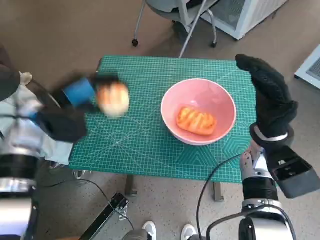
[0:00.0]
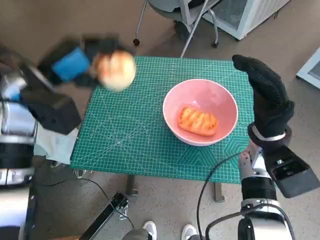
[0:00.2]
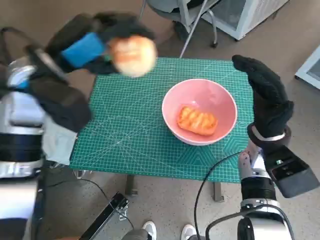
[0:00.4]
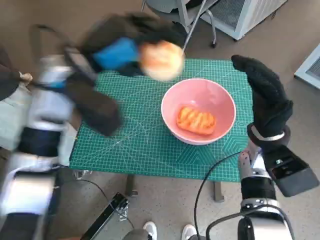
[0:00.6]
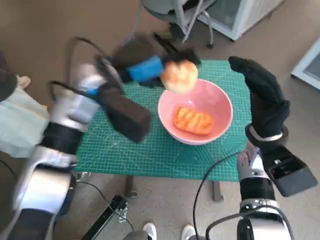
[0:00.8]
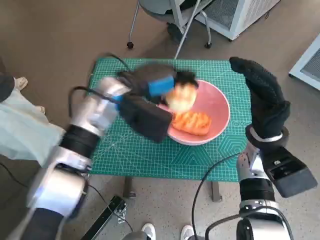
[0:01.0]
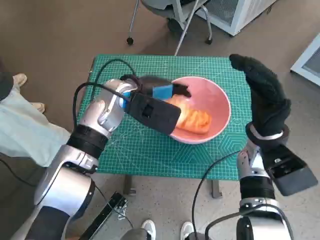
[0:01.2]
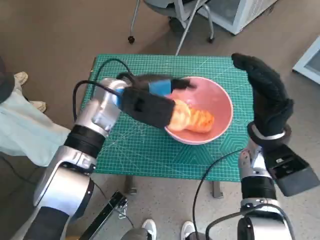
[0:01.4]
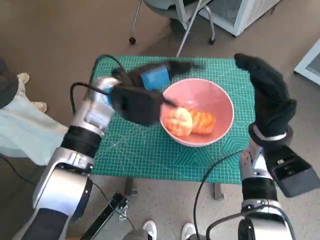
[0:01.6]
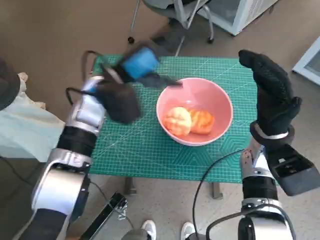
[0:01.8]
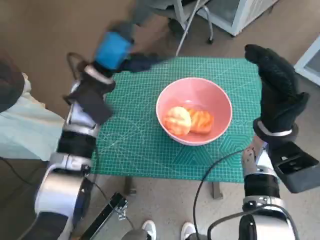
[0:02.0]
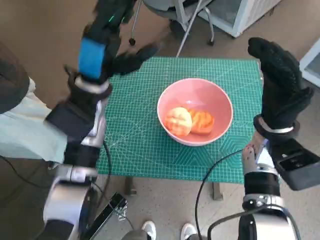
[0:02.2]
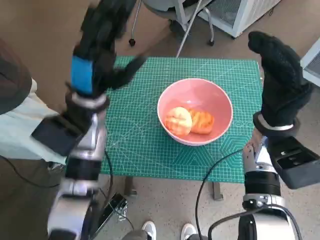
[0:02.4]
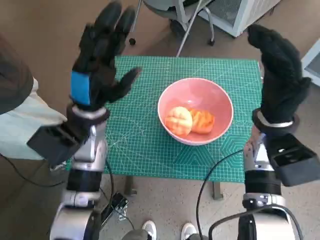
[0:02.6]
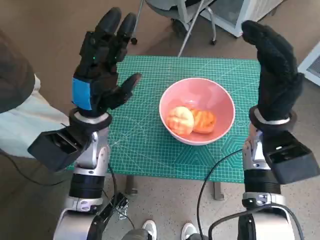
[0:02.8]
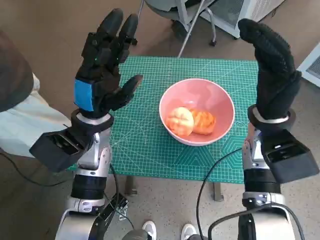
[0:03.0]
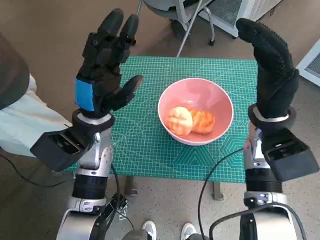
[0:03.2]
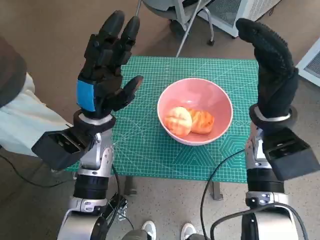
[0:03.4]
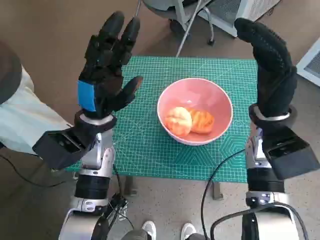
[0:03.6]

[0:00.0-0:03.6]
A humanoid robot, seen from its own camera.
Task of the whole recording: Push the bowl to the center of the table and put the bread into the bowl.
Step, 0:00.0 to 0:01.2: Place the round bread in pink bowl with left hand.
0:00.0 to 0:01.8: The left hand travels to the right by roughly 10 cm.
0:01.8 to 0:03.6: The left hand shifts roughly 10 cm downward and backward.

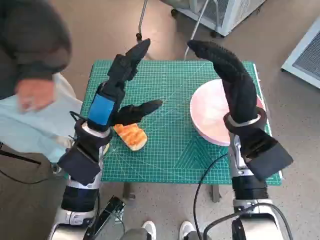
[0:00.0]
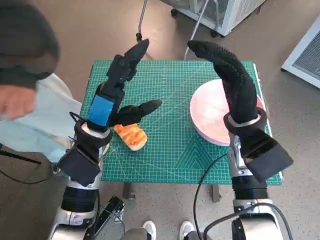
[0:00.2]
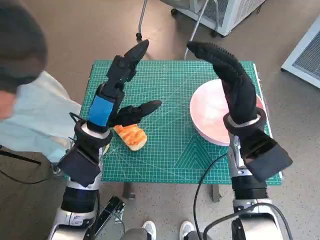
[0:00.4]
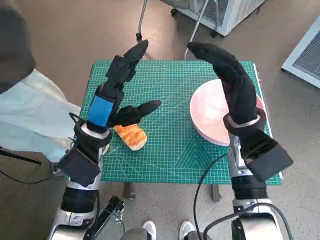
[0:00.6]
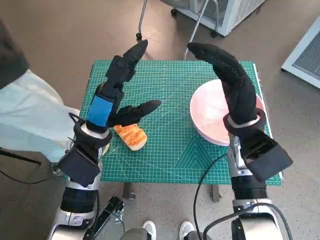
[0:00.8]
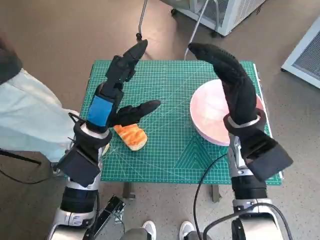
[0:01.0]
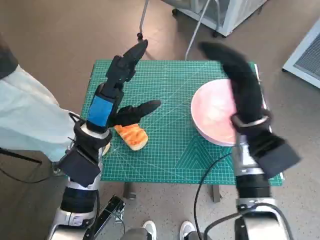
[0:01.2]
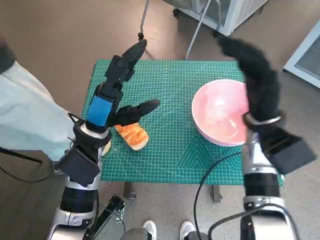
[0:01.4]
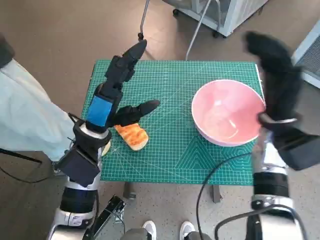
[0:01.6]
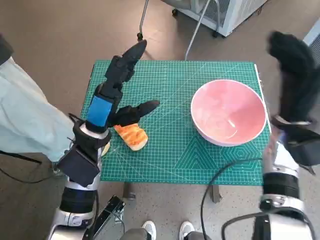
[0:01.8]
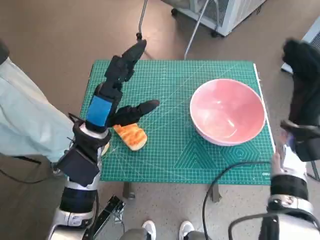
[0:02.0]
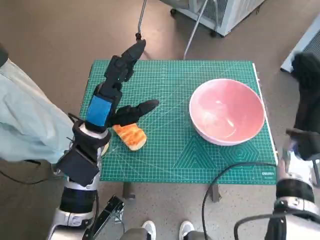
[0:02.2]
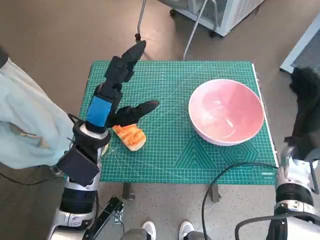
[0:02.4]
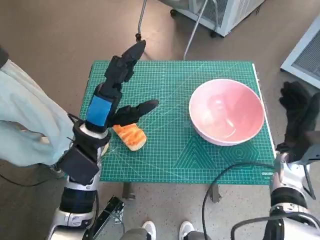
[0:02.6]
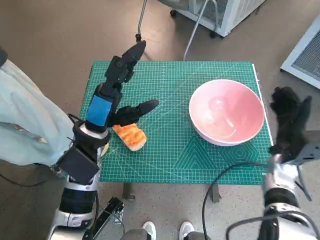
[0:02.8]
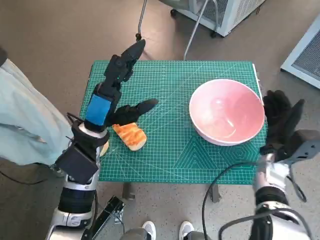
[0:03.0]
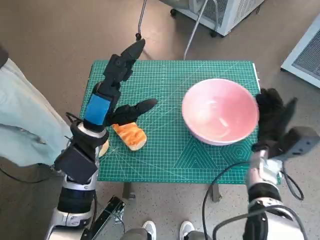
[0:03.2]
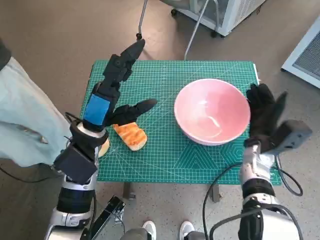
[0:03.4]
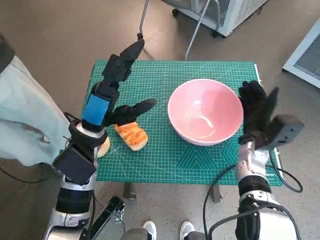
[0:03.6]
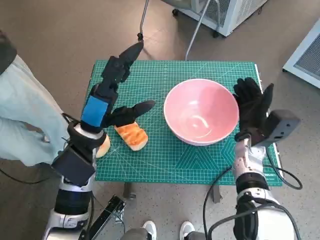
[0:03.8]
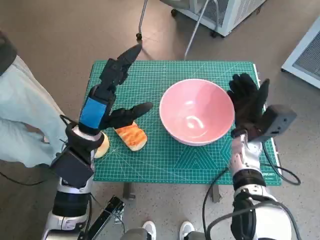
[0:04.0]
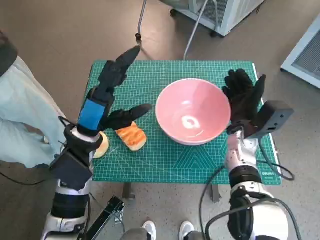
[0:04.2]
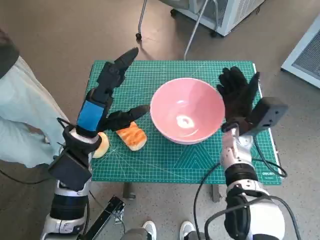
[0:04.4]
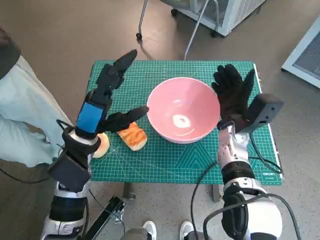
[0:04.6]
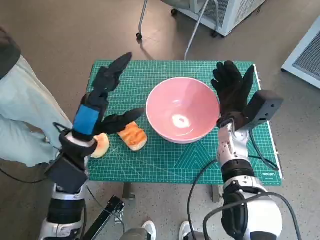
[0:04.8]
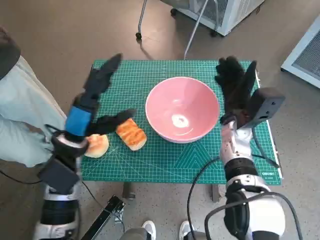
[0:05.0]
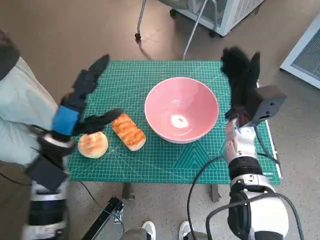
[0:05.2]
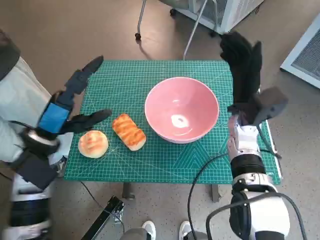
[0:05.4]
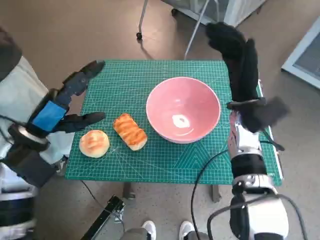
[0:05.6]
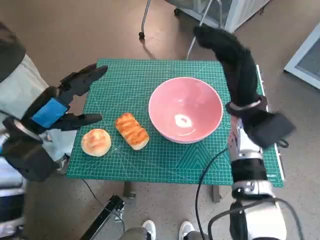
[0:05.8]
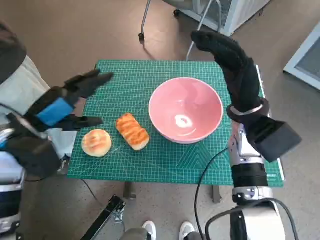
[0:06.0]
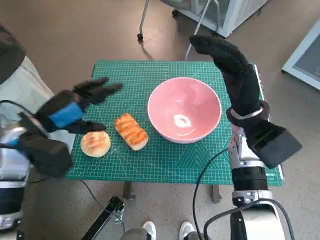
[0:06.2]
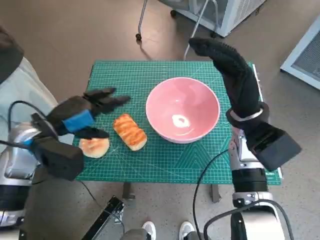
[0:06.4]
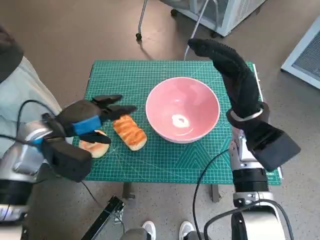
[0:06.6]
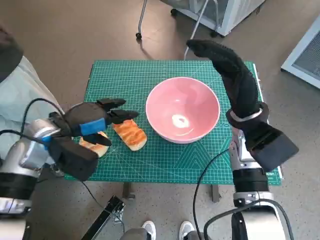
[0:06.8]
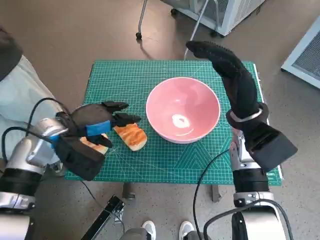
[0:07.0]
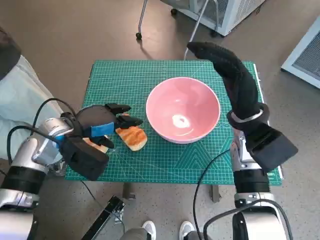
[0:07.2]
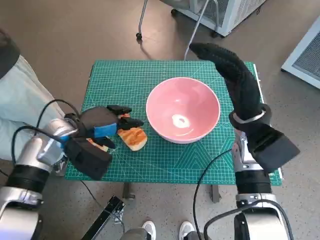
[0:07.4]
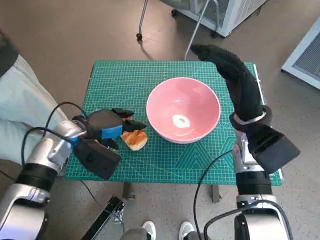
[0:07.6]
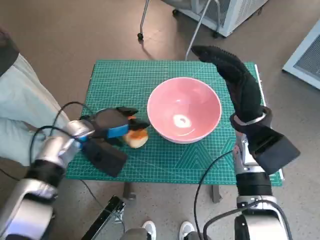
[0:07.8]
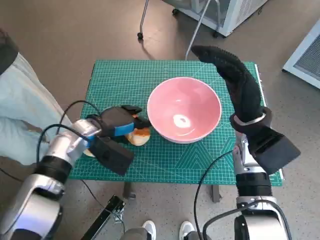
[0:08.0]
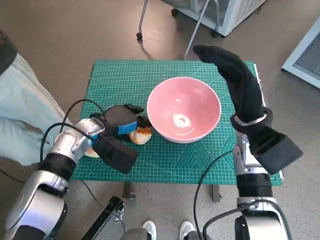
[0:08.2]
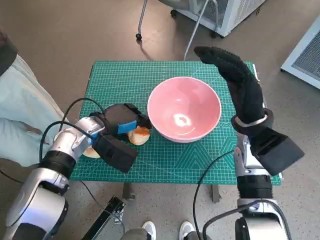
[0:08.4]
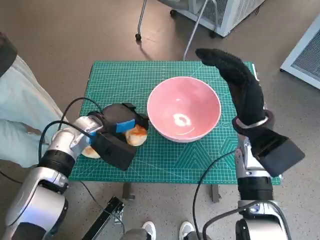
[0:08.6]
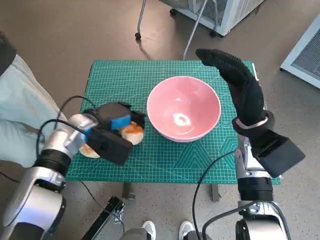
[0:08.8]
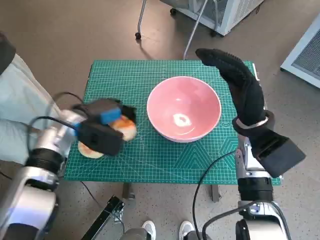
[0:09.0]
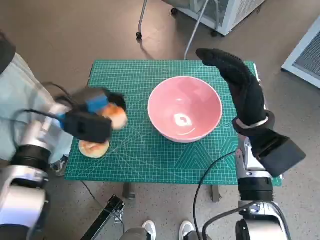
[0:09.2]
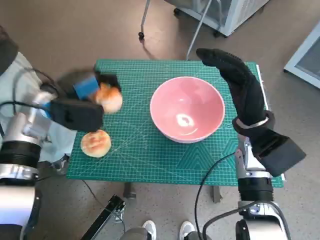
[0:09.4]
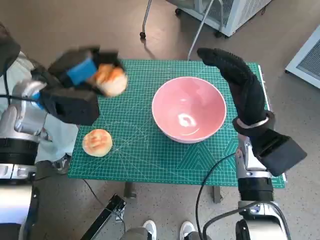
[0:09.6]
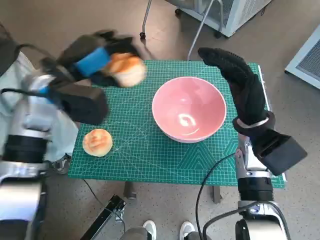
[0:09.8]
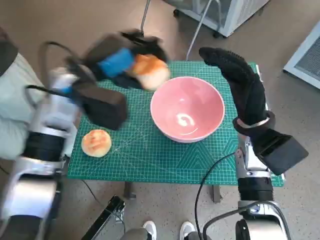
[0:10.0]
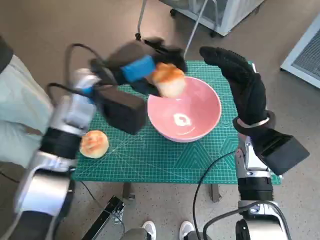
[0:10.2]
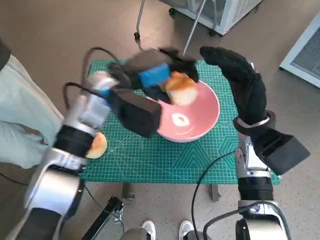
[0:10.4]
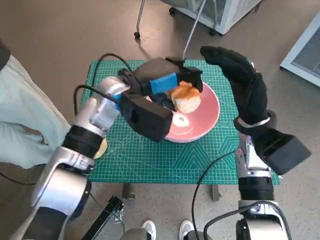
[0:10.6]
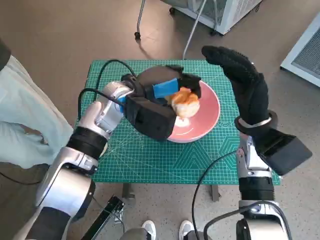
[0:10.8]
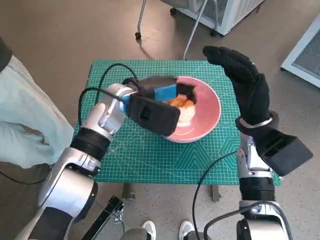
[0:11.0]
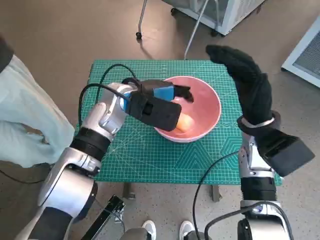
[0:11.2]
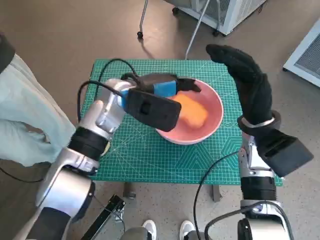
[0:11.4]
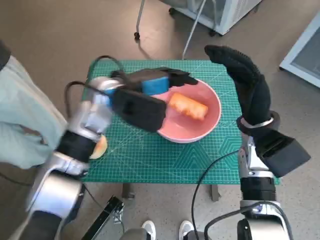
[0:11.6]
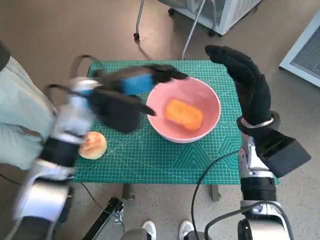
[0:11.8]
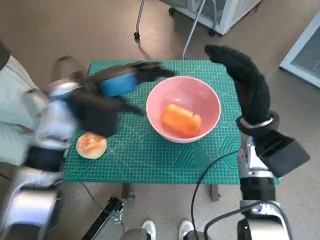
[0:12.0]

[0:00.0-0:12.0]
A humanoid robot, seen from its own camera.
Task of the whole recording: Push the bowl to the center of the table and put the bread into the bowl.
Step, 0:00.0 to 0:04.8: Move the pink bowl to the center of table with right hand.
Step, 0:05.0 to 0:08.6: Grasp the long bread with left hand.
Step, 0:08.8 to 0:11.4: Place the long bread in pink bowl with left hand.
0:01.6 to 0:03.0: The right hand goes roughly 10 cm downward.
0:03.0 to 0:04.4: The right hand goes about 10 cm to the left.
0:04.4 to 0:06.0: The left hand shifts about 10 cm to the left, while the right hand is displaced upward by some 10 cm.
0:06.0 to 0:07.6: The left hand is displaced downward and to the right by about 10 cm.
0:07.6 to 0:09.0: The hands make only small movements.
0:09.0 to 0:10.4: The left hand travels upward and to the right by about 15 cm.
0:10.4 to 0:12.0: The left hand travels to the left by some 5 cm.

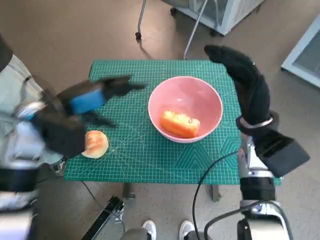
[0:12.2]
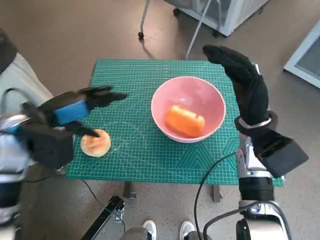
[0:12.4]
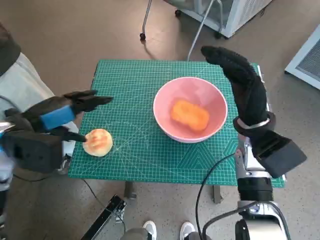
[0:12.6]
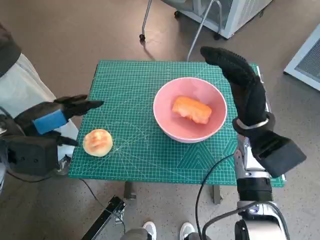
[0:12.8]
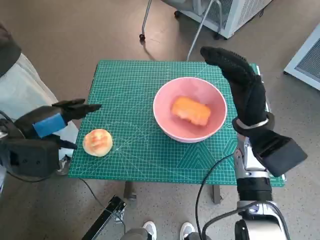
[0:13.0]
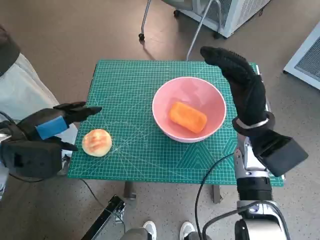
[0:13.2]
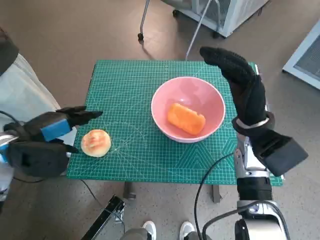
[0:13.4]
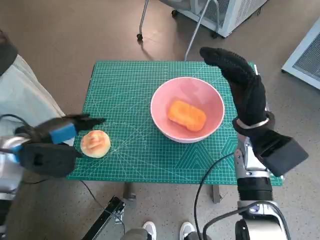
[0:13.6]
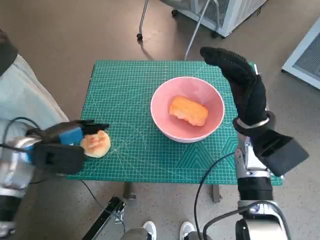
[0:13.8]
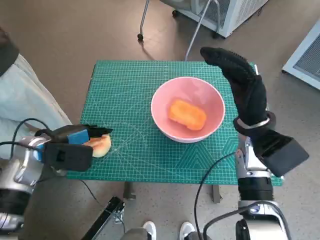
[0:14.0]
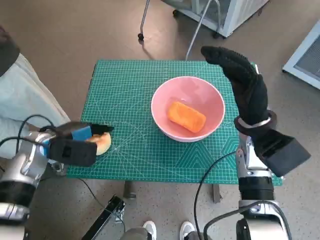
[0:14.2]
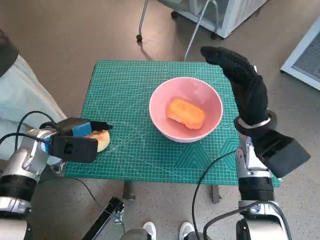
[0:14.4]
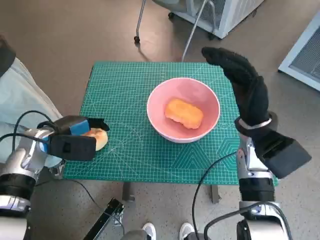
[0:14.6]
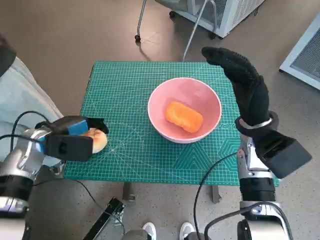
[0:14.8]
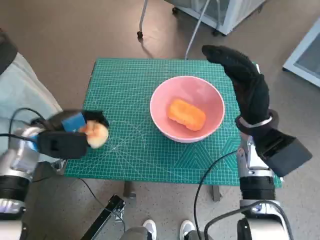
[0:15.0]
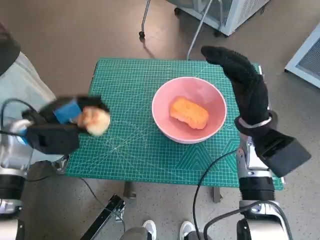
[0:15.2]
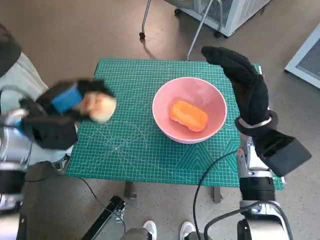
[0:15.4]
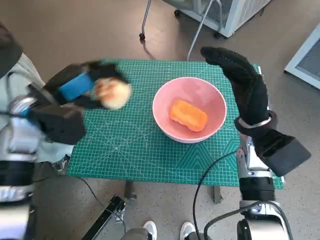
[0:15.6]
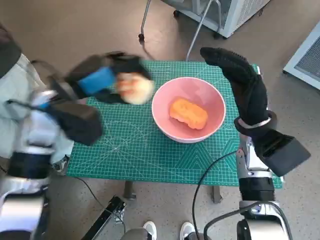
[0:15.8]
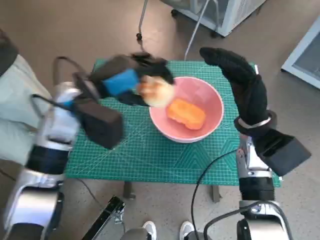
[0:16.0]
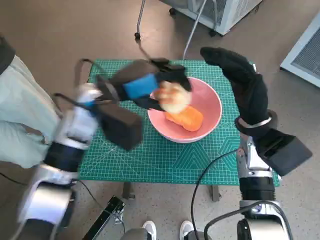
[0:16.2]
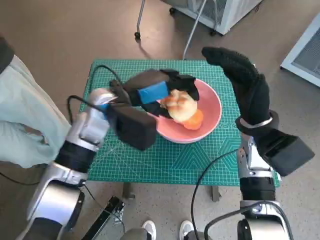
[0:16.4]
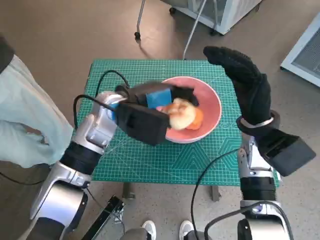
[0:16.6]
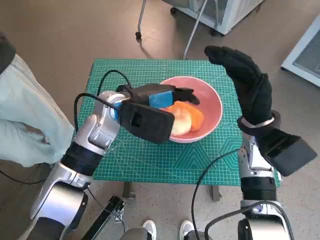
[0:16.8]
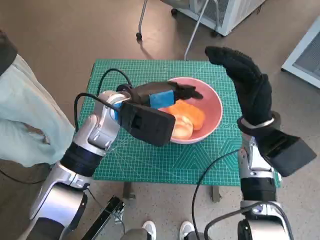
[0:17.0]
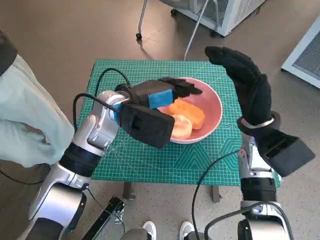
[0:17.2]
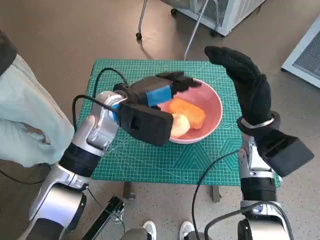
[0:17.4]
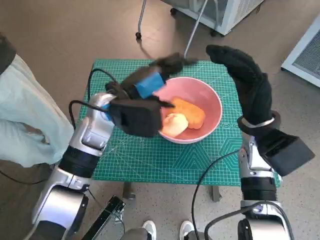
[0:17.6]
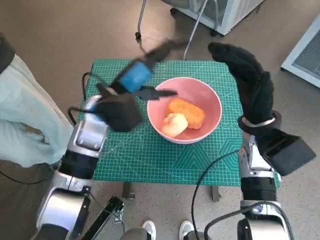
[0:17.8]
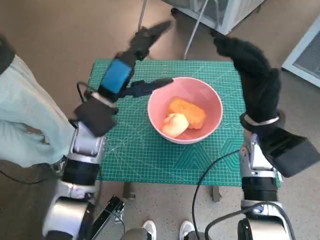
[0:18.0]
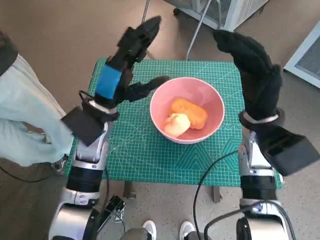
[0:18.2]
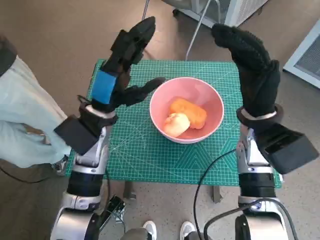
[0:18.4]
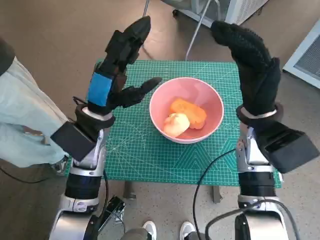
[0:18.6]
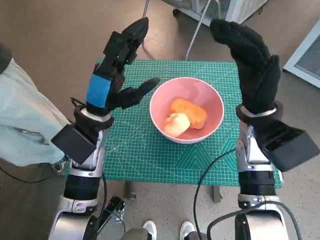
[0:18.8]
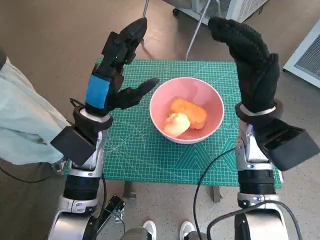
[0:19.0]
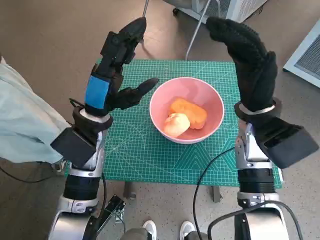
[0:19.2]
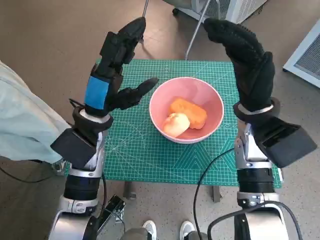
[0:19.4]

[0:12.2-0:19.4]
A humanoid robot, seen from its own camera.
Task of the whole recording: Push the bowl to the center of the table and put the bread into the bowl.
Step, 0:12.2 to 0:14.4: Grasp the round bread with left hand.
Step, 0:14.6 to 0:17.0: Place the round bread in pink bowl with left hand.
0:12.2 to 0:13.6: The left hand is displaced to the left and downward by some 10 cm.
0:13.6 to 0:15.0: The left hand shifts by roughly 5 cm.
0:15.0 to 0:16.6: The left hand moves to the right, roughly 15 cm.
